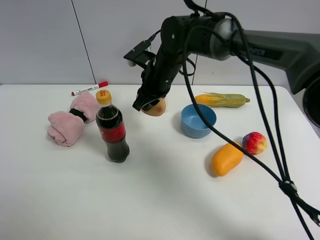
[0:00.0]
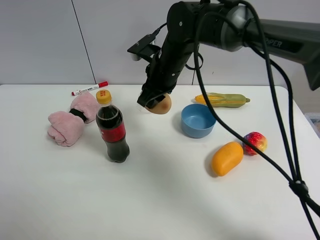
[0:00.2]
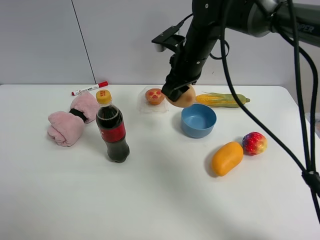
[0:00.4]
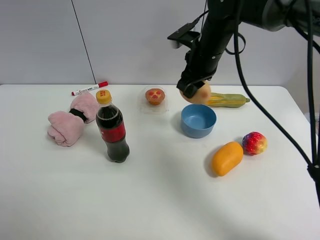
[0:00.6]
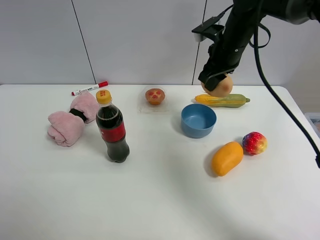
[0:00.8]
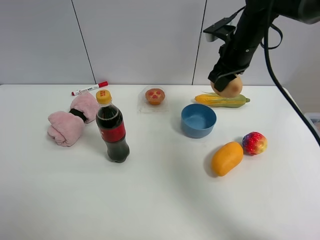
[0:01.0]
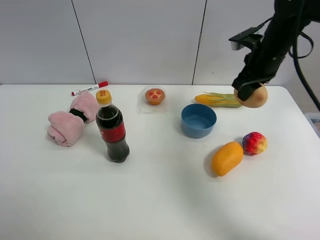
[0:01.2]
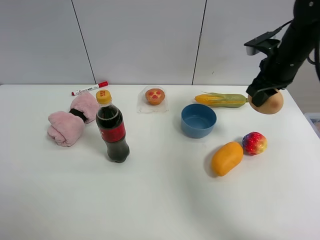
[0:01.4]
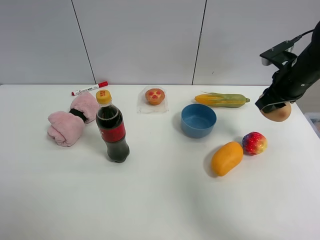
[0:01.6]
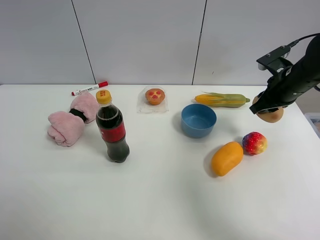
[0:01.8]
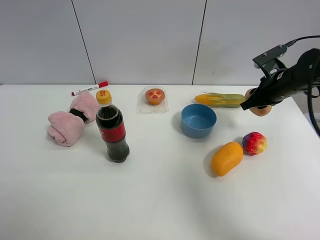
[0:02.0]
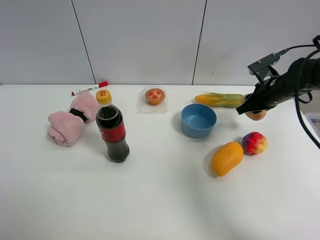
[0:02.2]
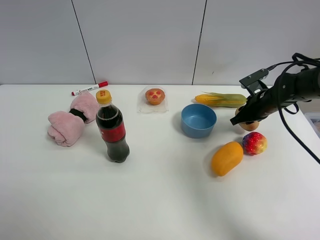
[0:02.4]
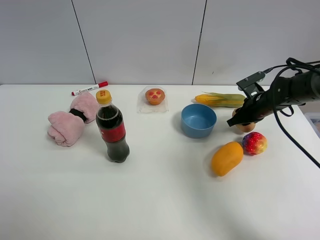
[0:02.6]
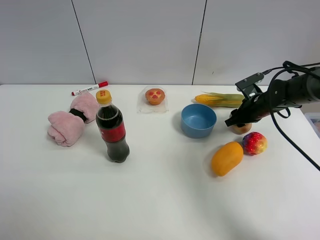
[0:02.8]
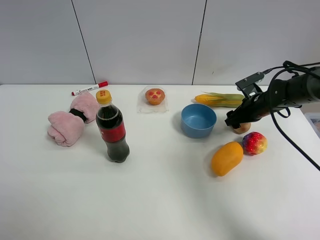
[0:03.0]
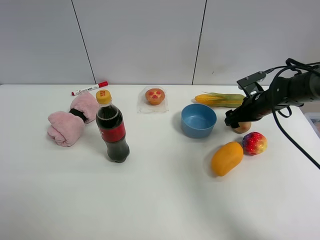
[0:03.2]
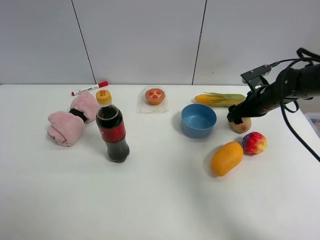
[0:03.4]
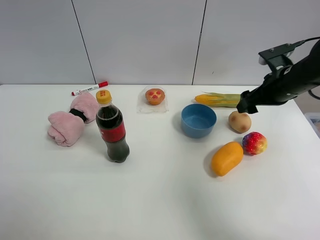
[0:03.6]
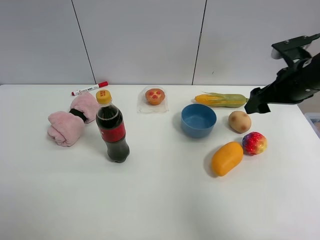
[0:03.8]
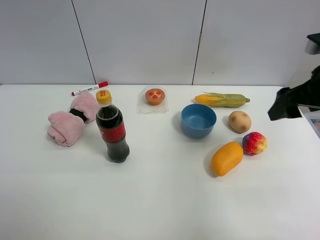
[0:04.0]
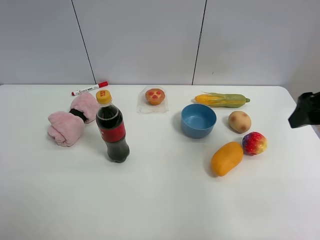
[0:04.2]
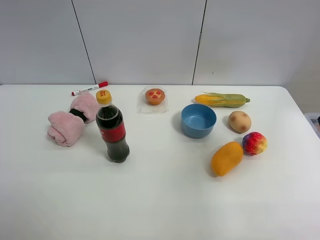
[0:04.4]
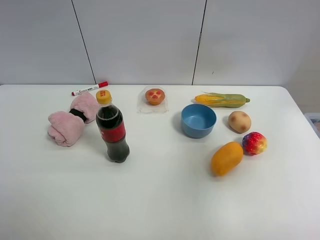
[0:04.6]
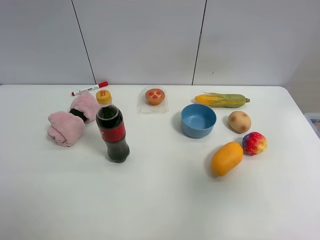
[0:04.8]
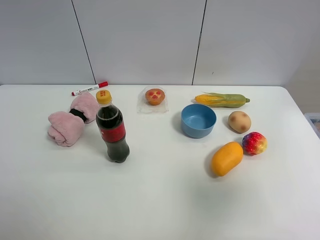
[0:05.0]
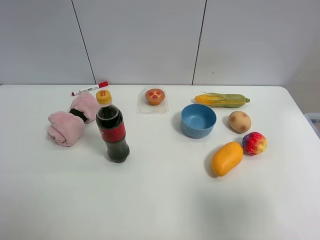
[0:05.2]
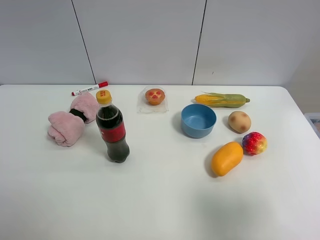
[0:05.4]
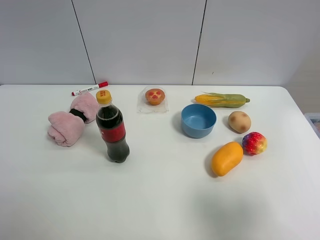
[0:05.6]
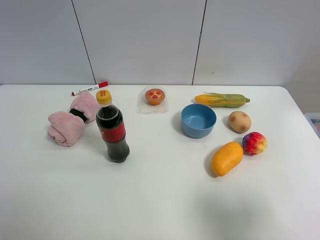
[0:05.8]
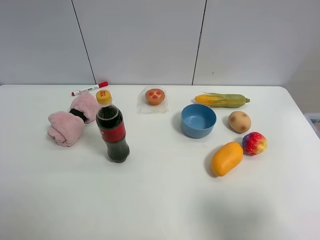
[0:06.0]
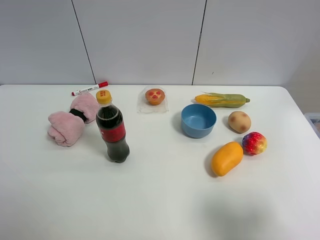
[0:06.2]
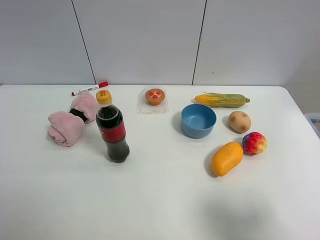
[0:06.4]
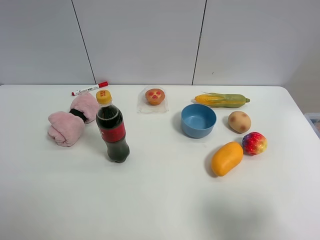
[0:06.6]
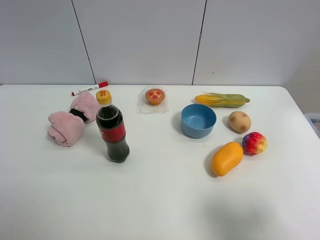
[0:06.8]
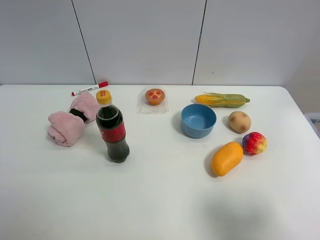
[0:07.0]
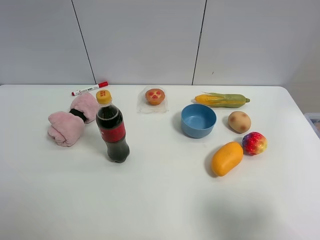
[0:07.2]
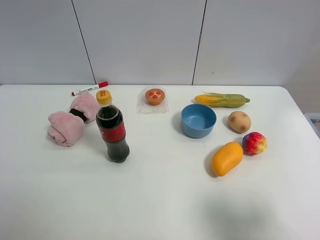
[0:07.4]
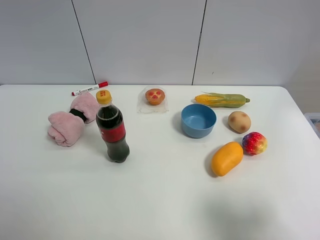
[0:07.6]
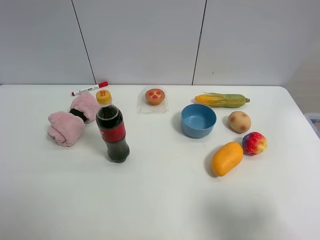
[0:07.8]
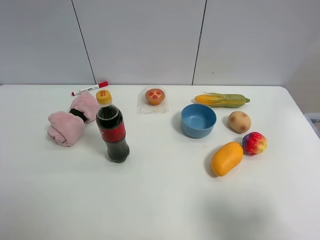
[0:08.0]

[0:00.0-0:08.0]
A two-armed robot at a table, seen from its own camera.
Task of the whole recording: the gripper move the object.
Step, 0:00.0 to 0:03.4: Place the egg yolk pastry on the table with the right gripper.
0:00.0 to 0:01.6: The right gripper moves to the right, roughly 30 cm.
0:01.6 to 0:03.2: The right gripper travels downward by some 10 cm, and opens.
0:03.2 to 0:04.8: The right gripper heads backward and upward, covering approximately 40 cm.
0:04.8 to 0:06.4: The right gripper goes roughly 10 cm downward.
0:06.4 to 0:08.0: Both grippers stay about where they are.

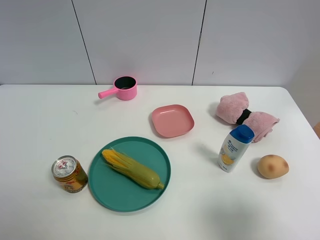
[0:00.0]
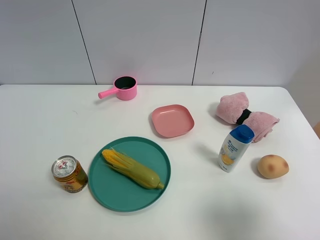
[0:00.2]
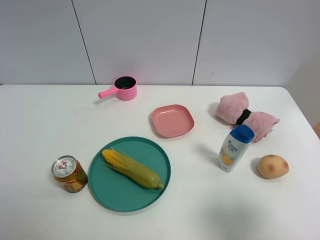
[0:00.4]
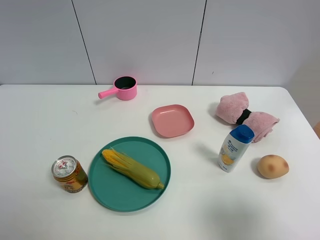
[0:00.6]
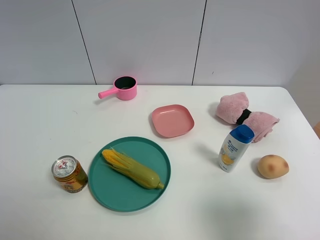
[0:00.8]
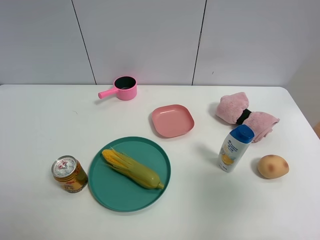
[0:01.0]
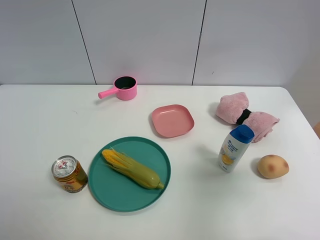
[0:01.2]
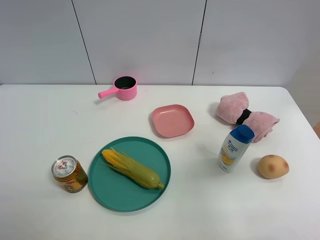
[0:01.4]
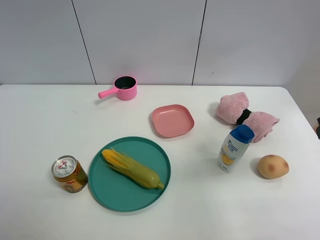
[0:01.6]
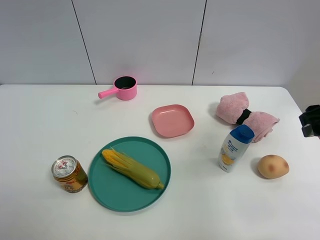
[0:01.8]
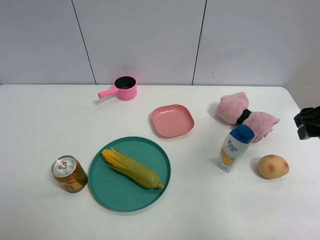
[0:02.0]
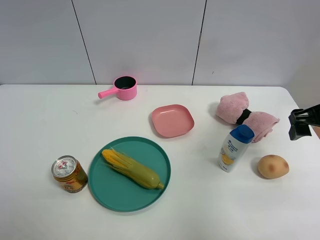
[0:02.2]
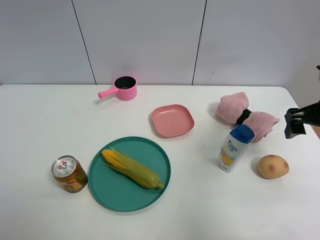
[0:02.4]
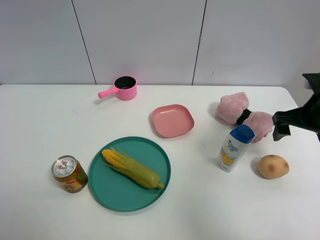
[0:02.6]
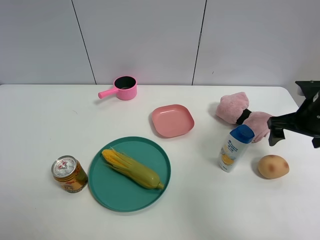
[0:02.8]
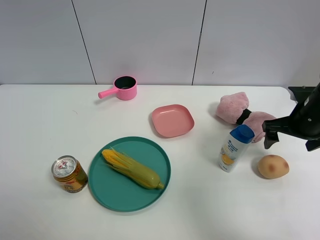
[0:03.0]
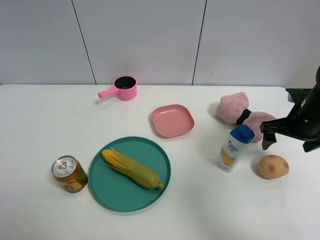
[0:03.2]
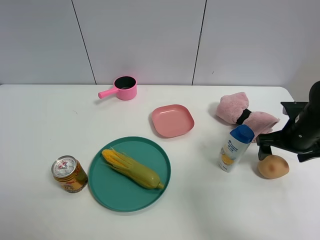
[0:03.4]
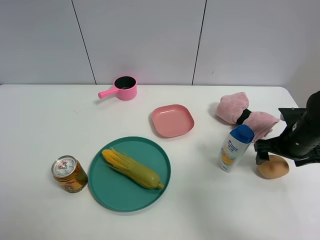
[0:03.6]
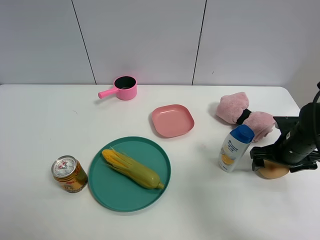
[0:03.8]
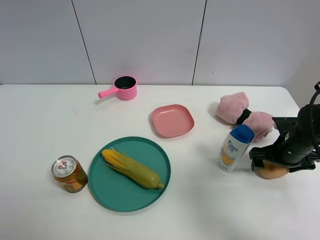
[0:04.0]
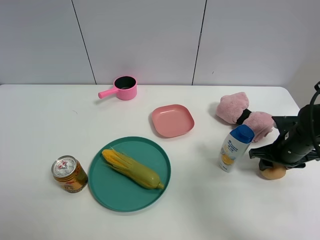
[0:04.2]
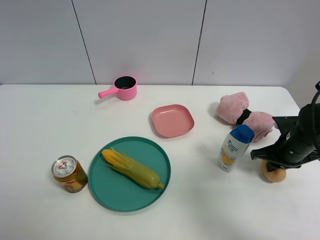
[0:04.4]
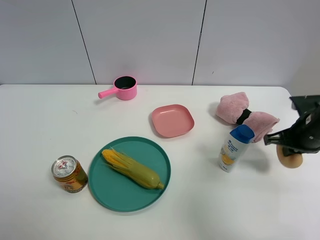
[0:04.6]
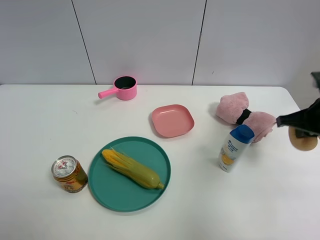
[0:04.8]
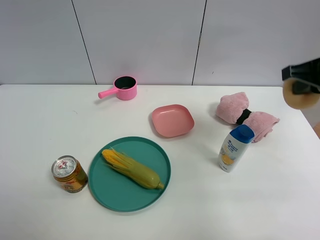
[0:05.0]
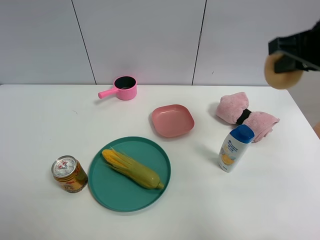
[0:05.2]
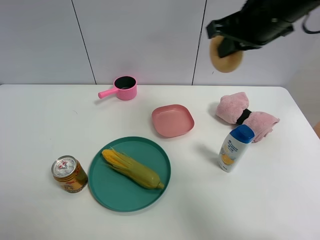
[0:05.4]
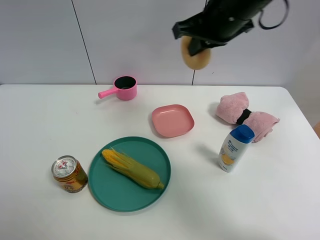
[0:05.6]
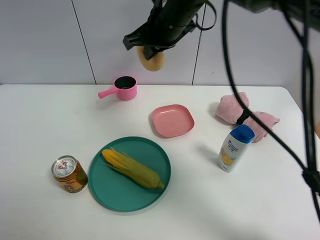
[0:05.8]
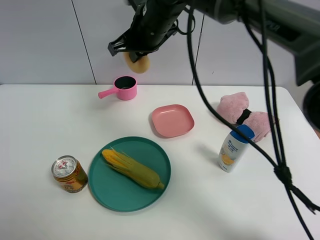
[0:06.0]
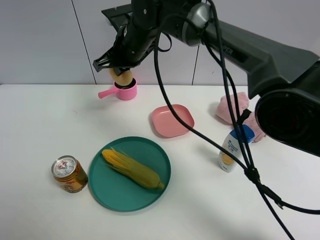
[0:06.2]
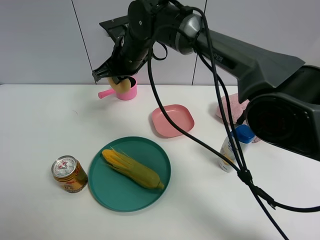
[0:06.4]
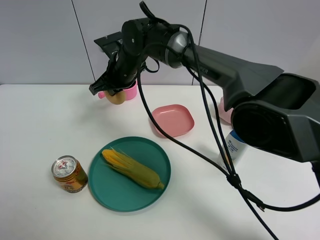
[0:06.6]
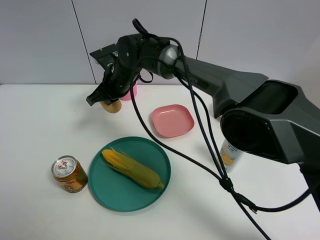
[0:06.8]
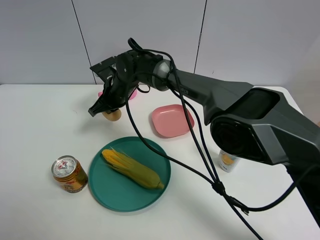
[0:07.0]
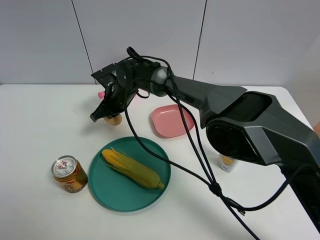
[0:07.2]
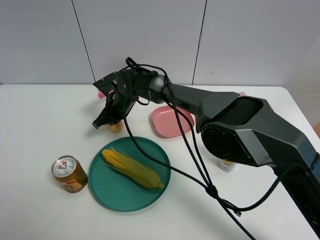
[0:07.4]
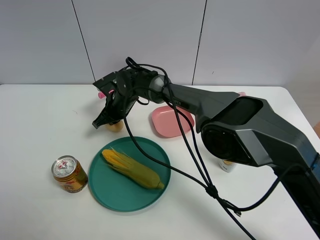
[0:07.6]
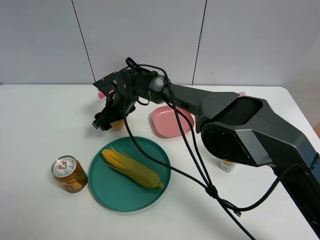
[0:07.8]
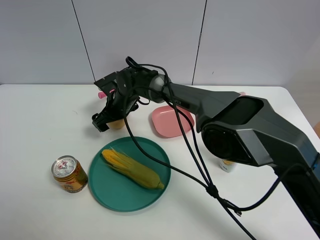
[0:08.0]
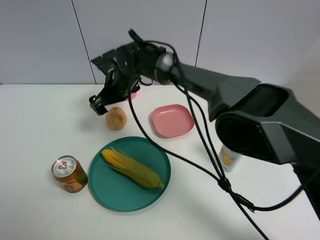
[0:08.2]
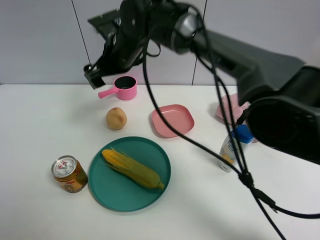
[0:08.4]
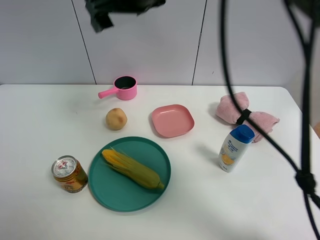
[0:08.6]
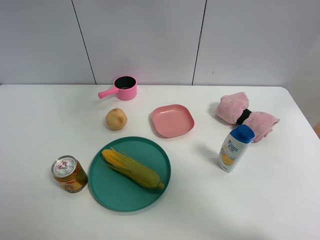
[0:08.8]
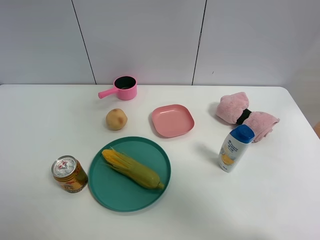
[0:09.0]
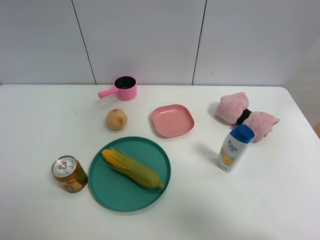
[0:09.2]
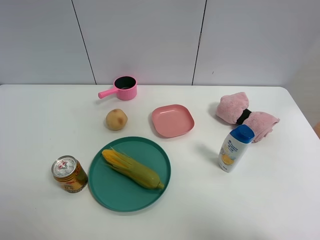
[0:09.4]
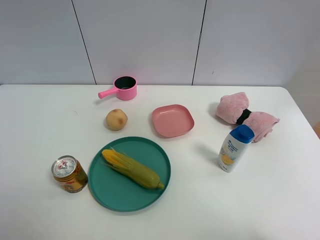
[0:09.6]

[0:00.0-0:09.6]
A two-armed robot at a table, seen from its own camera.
Task of the whole recording: the gripper move the object.
Step, 0:00.0 to 0:04.2: Grasp the egg yolk pastry with the right gripper.
Step, 0:04.4 to 0:08.2: Place the egg yolk pastry on the table with the right gripper.
0:00.0 to 0:01.6: The right gripper moves forward, some 15 cm.
0:01.6 to 0:03.2: The right gripper shifts about 15 cm downward and forward.
0:03.2 to 0:04.8: The right gripper moves upward, roughly 10 cm, and closes up.
0:04.8 to 0:06.4: The right gripper travels to the left and forward by approximately 40 cm.
0:06.4 to 0:08.0: The right gripper shifts roughly 15 cm downward, and opens up.
0:08.0 to 0:09.6: The right gripper heads upward, to the right and backward, covering approximately 70 cm.

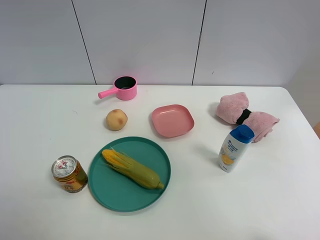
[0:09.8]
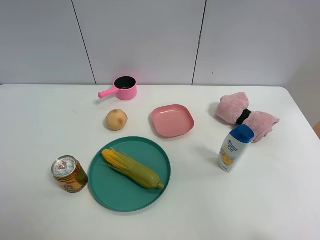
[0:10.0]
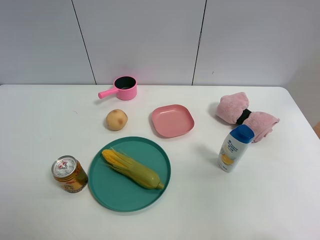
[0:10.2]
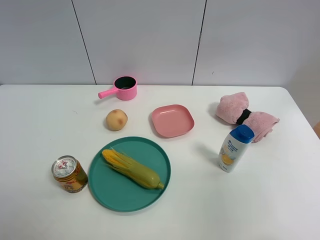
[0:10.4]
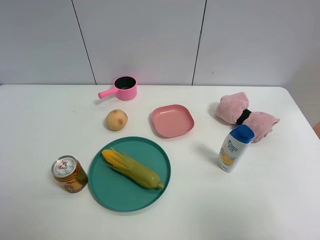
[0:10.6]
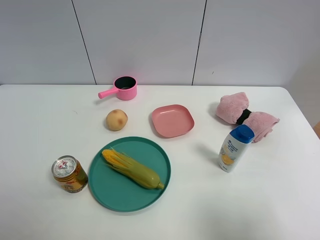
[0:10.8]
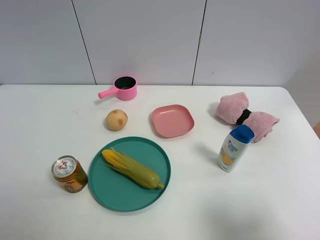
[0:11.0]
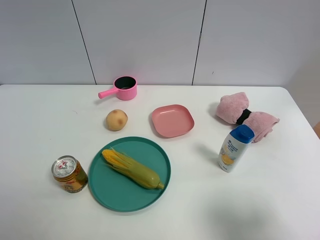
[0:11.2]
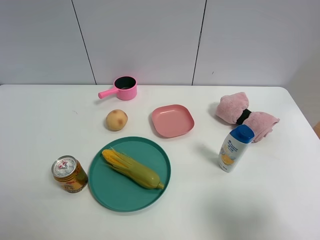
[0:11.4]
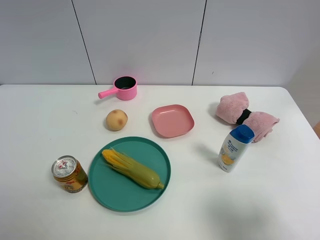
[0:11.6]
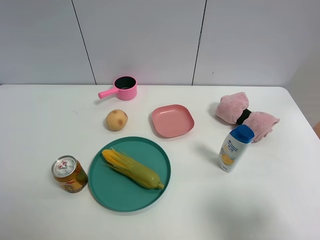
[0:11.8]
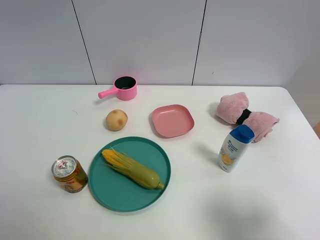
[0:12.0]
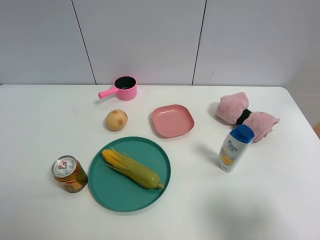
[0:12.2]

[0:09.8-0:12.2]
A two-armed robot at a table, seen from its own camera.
Task of the whole recording: the gripper move the object.
0:09.8 to 0:11.0: The right gripper is displaced downward by some 30 cm.

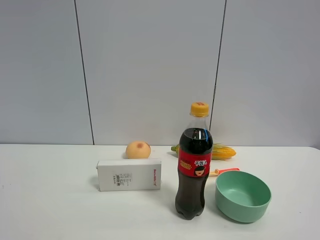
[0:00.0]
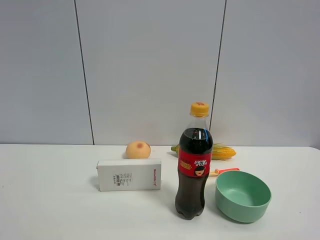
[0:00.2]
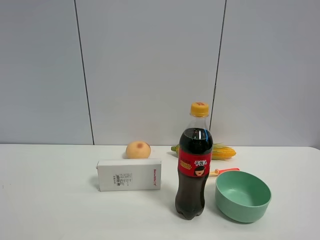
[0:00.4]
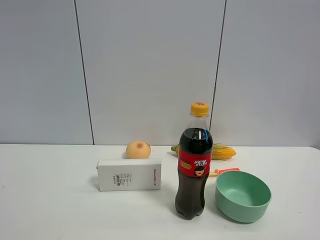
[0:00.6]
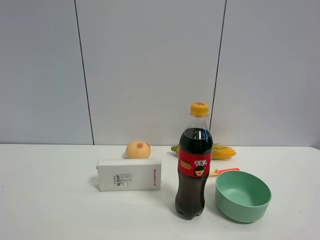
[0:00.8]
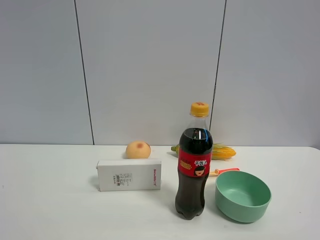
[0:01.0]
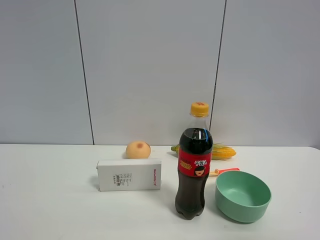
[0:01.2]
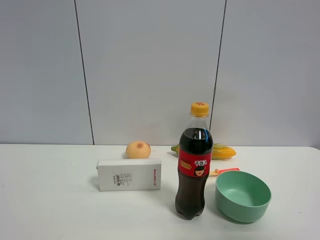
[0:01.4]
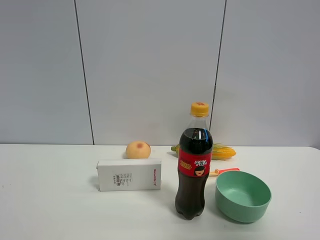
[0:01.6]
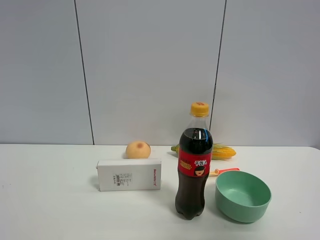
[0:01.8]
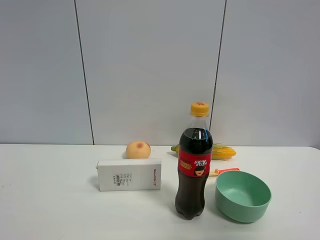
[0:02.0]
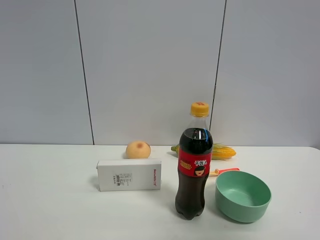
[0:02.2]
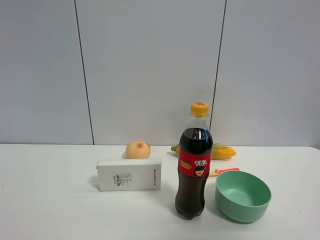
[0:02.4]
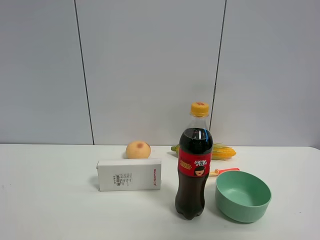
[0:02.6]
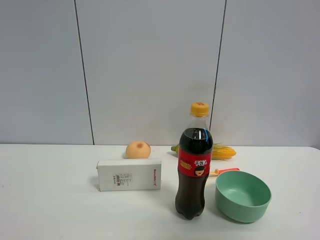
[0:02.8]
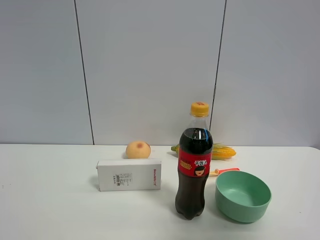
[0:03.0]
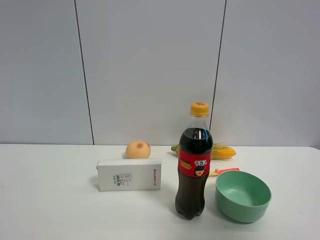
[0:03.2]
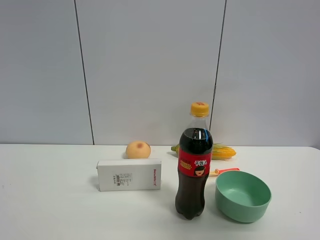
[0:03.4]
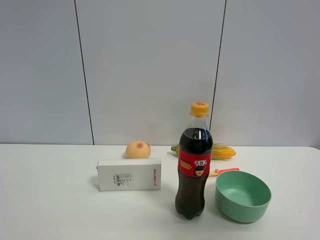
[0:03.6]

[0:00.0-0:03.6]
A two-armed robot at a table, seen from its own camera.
Task of the whole recording: the gripper move the object.
0:00.0 to 0:01.8: The right gripper goes some 10 cm upward and forward.
